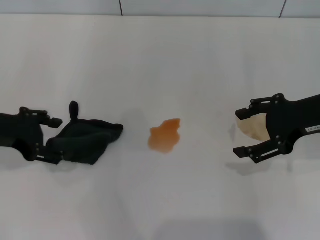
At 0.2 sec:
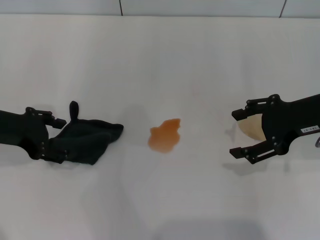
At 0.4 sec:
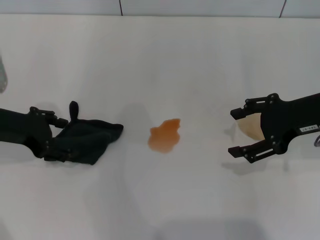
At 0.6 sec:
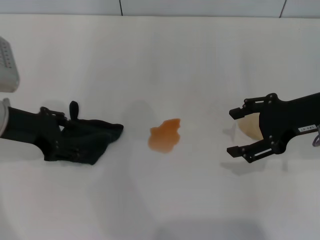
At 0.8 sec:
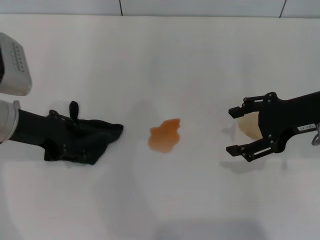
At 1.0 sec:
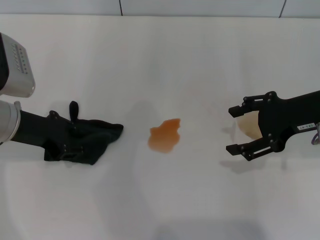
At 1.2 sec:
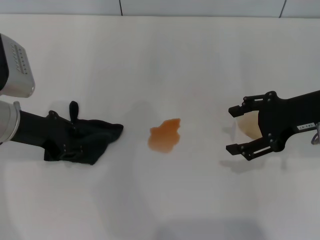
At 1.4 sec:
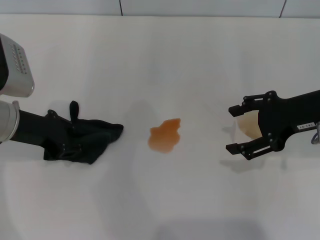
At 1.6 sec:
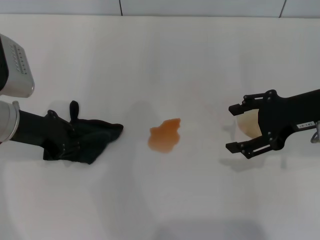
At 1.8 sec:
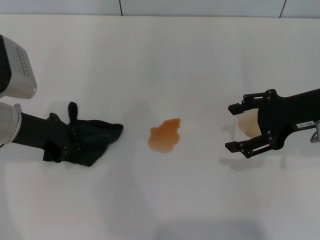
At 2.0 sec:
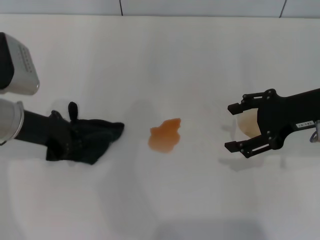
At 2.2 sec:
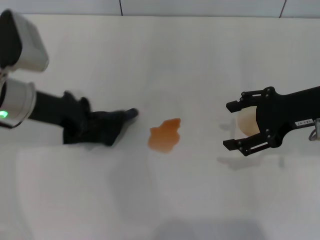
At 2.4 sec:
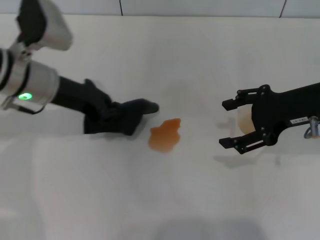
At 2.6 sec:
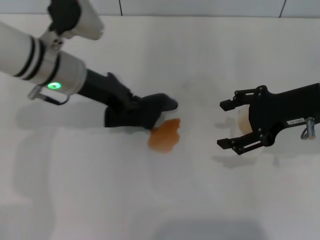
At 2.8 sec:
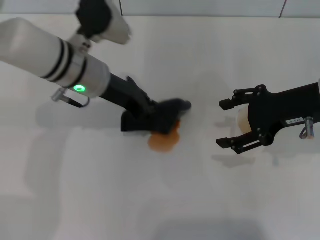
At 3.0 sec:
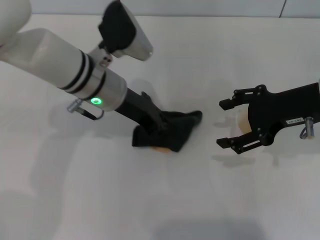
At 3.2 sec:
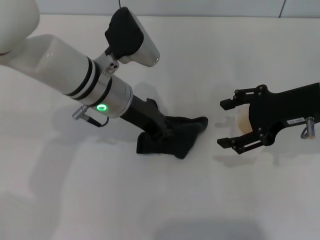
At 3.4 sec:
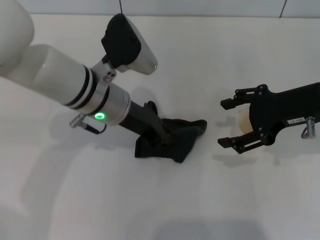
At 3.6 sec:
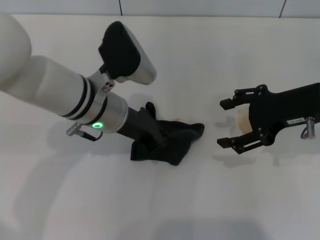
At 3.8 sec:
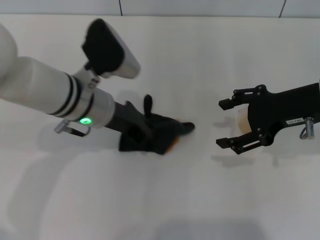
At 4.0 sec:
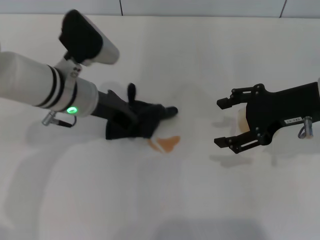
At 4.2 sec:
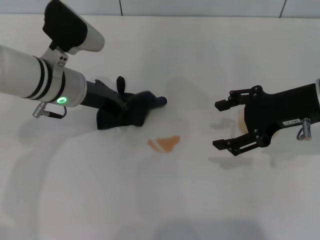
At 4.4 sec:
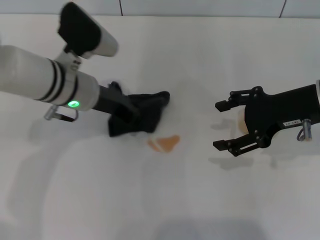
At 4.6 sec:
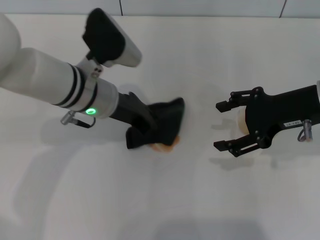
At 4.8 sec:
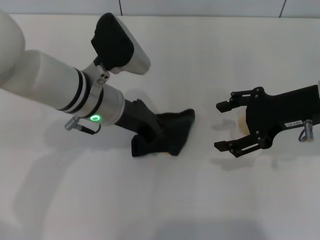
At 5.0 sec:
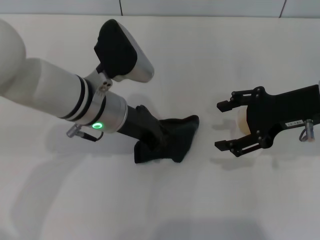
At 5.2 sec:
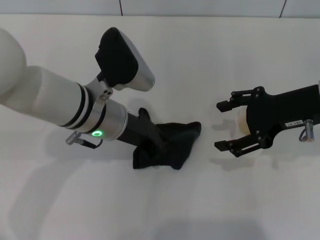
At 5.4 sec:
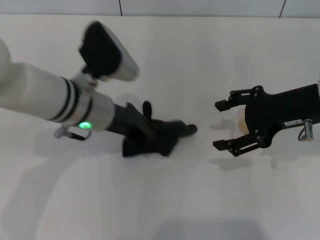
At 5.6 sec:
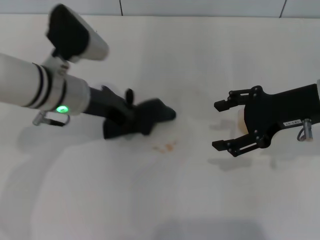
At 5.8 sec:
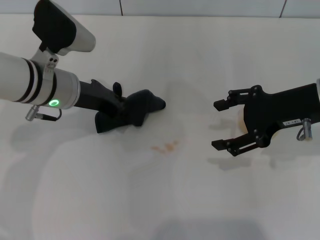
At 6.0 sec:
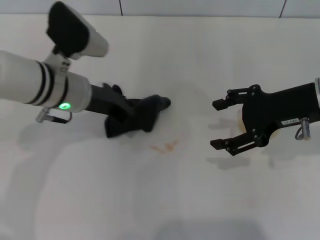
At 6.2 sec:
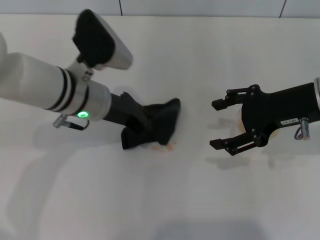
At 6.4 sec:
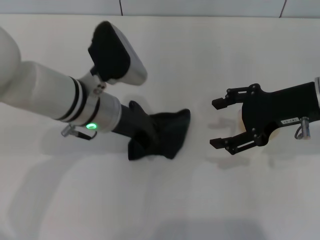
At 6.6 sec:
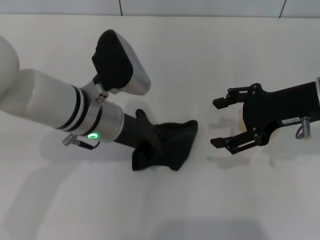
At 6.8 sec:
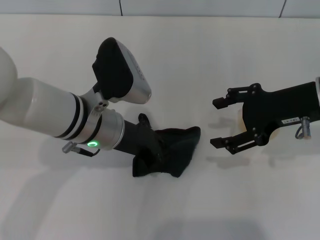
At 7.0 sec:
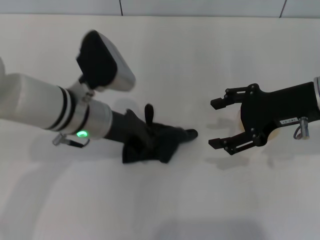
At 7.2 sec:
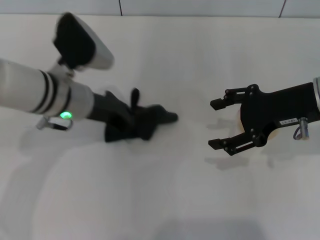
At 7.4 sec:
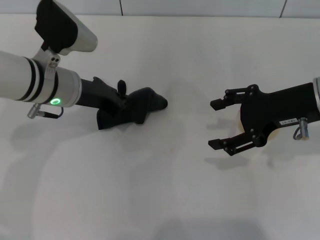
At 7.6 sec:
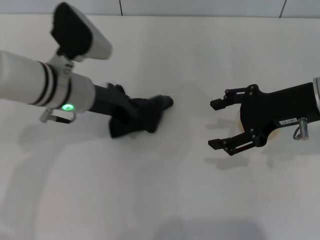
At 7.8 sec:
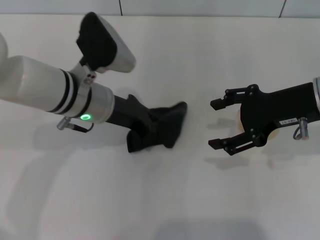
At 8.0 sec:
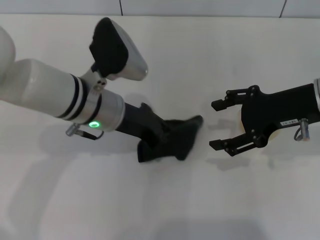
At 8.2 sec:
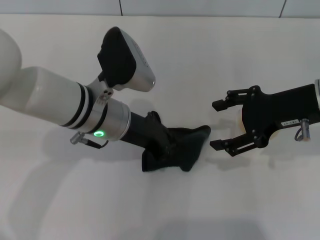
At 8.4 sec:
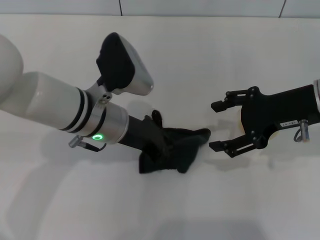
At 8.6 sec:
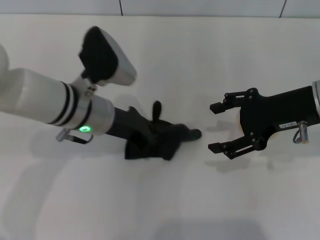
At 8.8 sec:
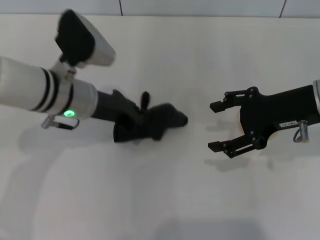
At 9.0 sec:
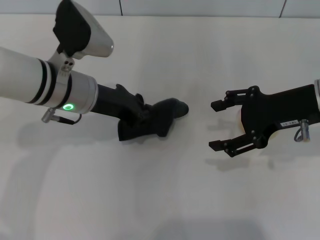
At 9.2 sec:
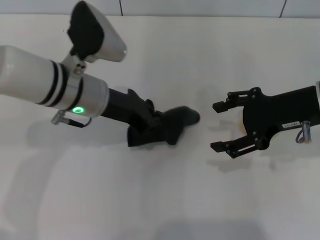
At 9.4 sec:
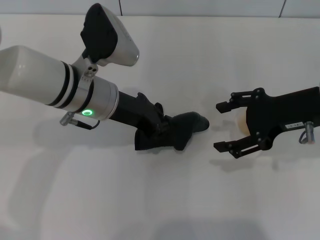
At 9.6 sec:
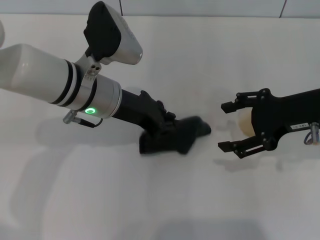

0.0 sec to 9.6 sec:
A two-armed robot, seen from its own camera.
Step, 0.0 sec to 2.0 sec: Grasp the rag with the left gripper.
Step, 2.2 sec to 9.2 sec: Wipe the stains off the table with the left gripper.
0.0 sec to 1.6 sec: The left gripper moves some 5 cm, and closes up.
1.6 sec to 3.2 sec: The left gripper goes about 15 cm to the right.
8.0 sec to 9.6 sec: The grippers move only a little.

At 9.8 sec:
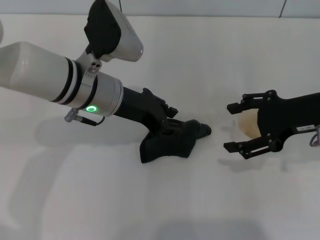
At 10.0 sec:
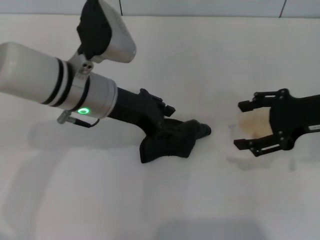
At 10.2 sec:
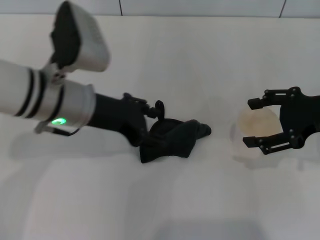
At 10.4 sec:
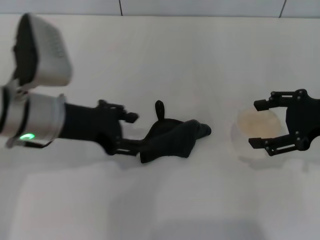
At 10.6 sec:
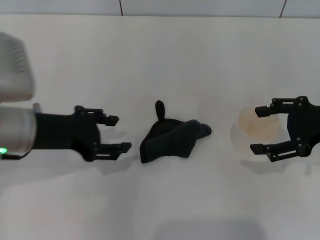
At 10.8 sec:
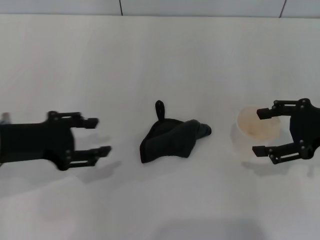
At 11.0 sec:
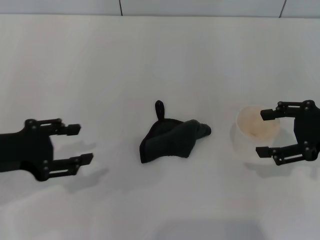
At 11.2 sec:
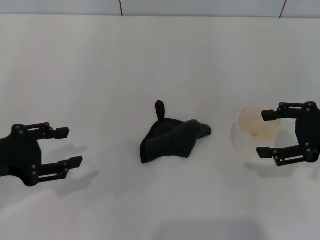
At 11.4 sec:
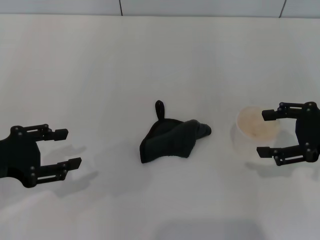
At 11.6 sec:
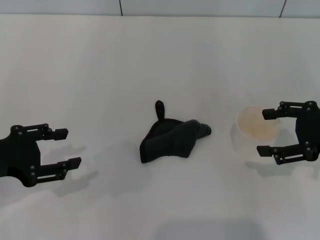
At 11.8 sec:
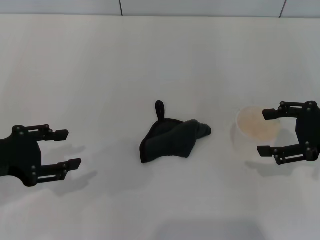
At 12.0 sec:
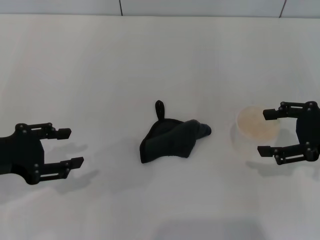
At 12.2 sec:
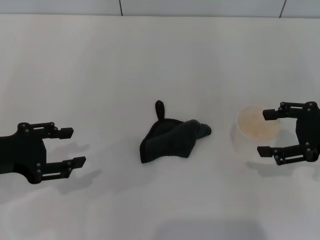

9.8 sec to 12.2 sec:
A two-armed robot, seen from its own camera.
9.8 sec to 11.0 sec: The left gripper travels to the left and backward by roughly 20 cm, and opens its fingers. The right gripper travels to the right by roughly 5 cm.
11.0 sec to 12.2 sec: There are only small adjustments of the grippers.
